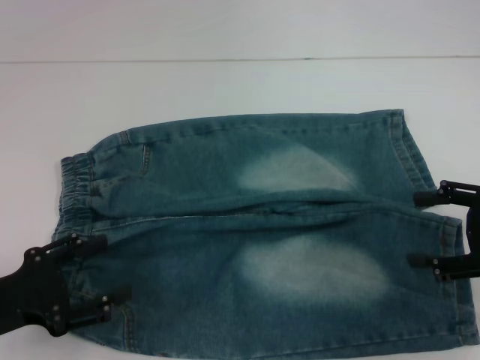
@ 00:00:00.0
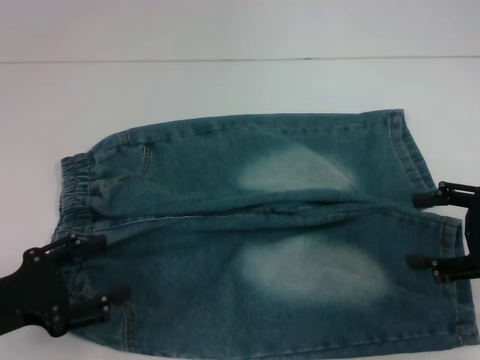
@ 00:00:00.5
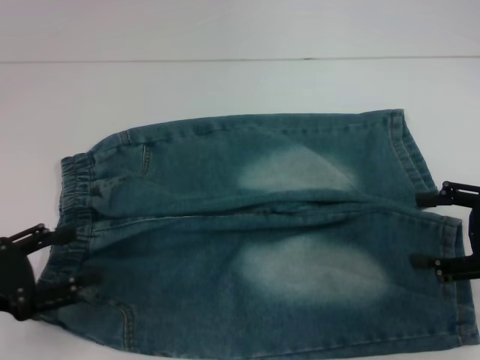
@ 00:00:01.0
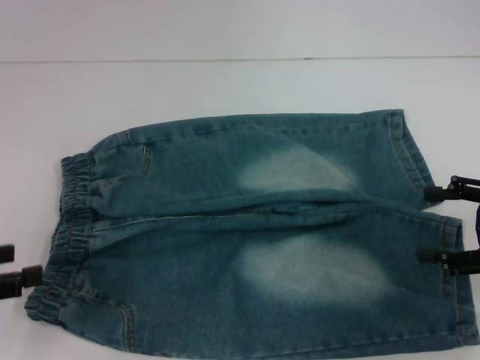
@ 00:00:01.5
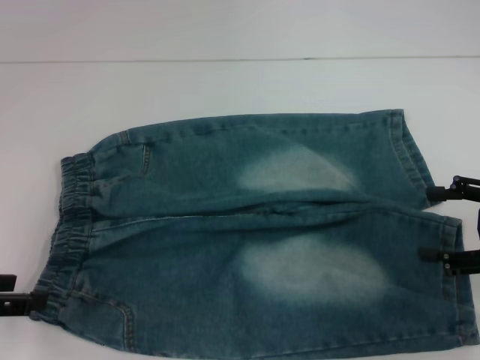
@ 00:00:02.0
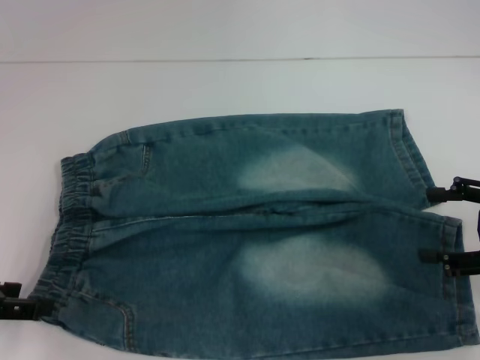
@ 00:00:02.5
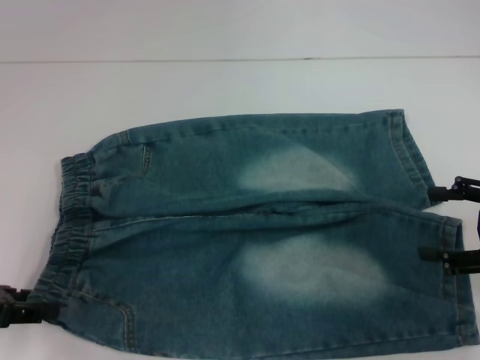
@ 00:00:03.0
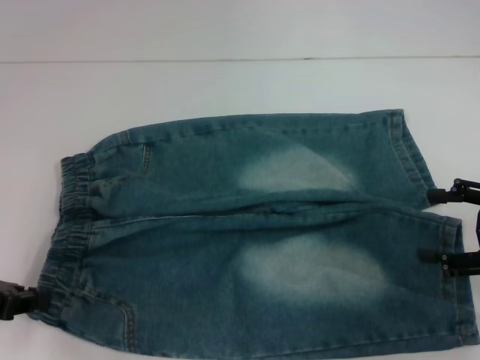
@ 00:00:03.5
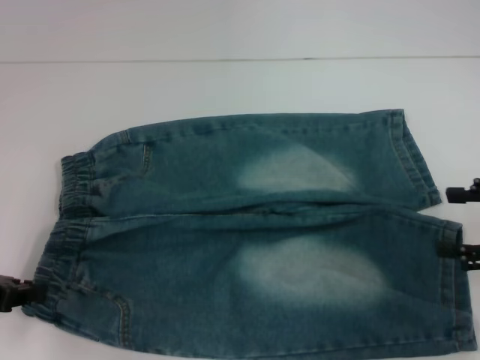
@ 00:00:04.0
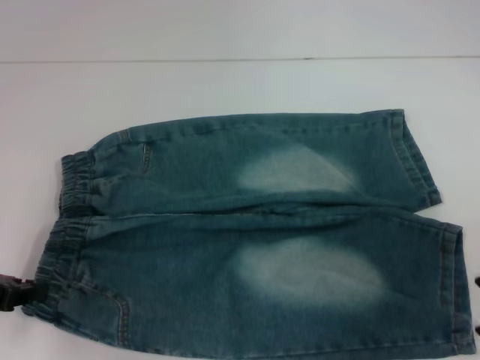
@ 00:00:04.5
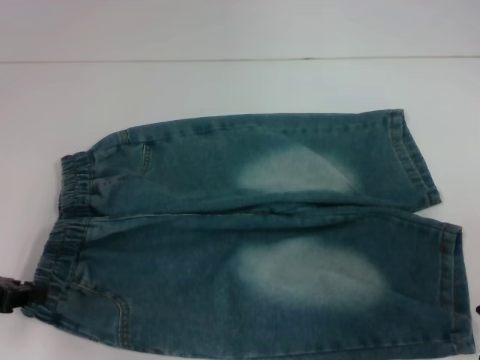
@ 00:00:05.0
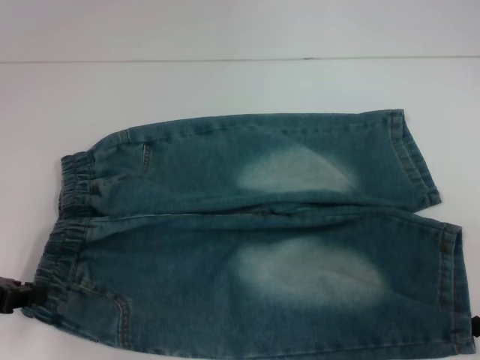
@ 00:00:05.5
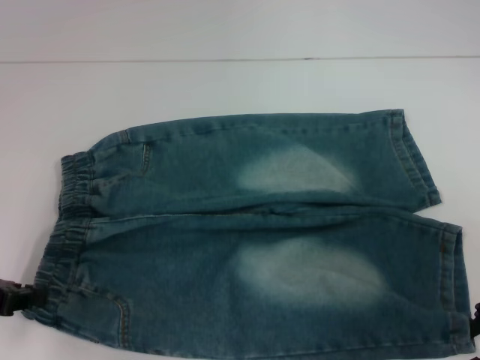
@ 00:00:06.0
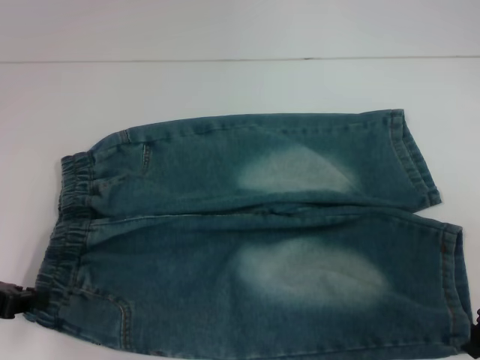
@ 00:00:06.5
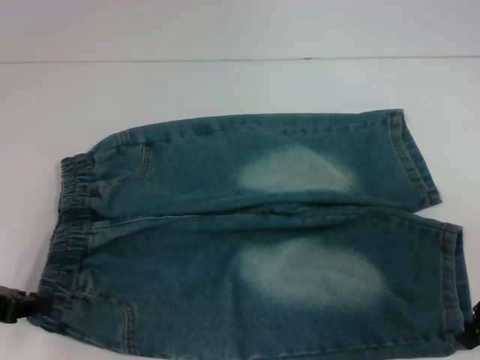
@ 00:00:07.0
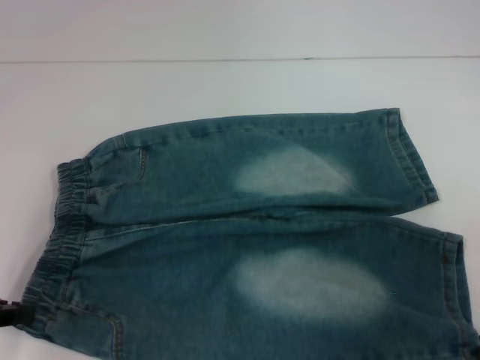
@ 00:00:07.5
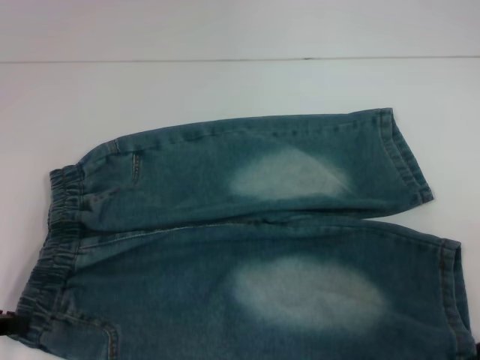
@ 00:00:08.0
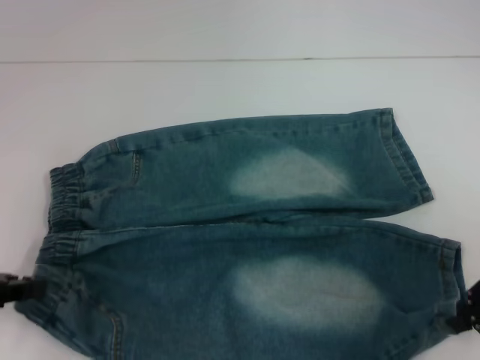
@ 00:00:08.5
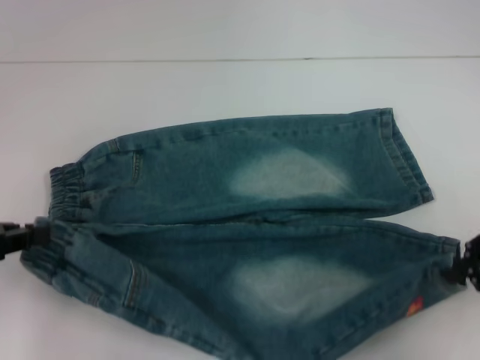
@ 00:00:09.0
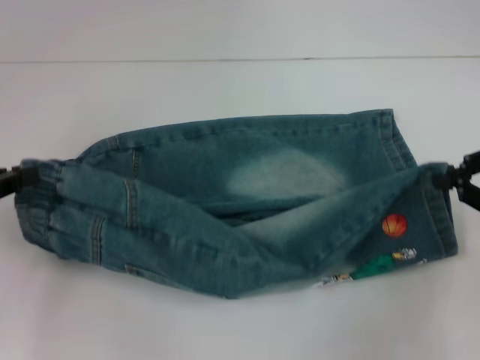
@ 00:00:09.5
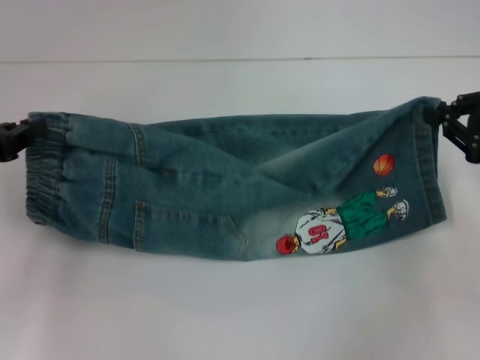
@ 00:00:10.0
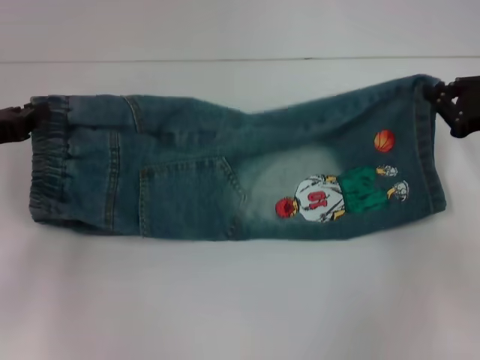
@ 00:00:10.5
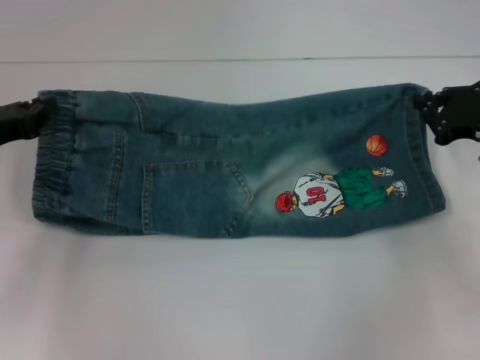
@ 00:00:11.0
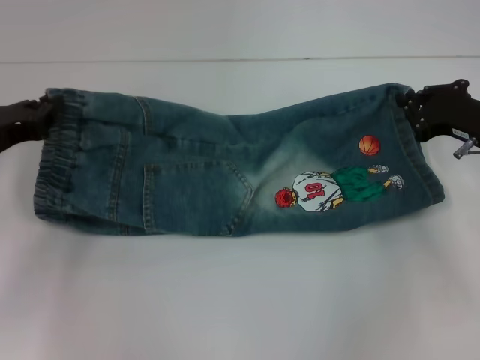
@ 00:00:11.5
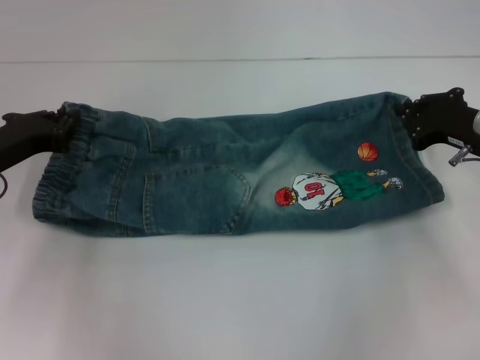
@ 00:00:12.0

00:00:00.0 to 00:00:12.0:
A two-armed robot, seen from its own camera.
Step, 00:00:00.0 to 00:00:03.0: Hold the lower left waistband with your left hand.
Step, 00:00:03.5 to 00:00:06.5: Grab the lower right pant leg with your right hand.
00:00:00.0 to 00:00:02.0: The left gripper shifts about 5 cm upward.
00:00:02.0 to 00:00:04.0: The left gripper closes.
00:00:06.0 to 00:00:08.0: The right gripper closes up.
00:00:08.0 to 00:00:10.0: The grippers both shift forward by approximately 5 cm.
00:00:10.0 to 00:00:12.0: The left gripper travels downward by approximately 5 cm, while the right gripper shifts approximately 10 cm downward and forward.

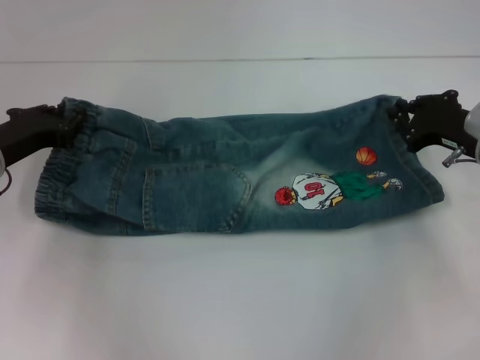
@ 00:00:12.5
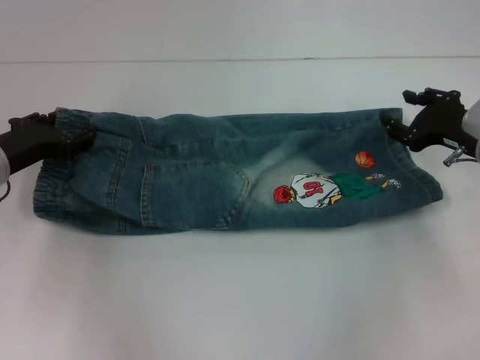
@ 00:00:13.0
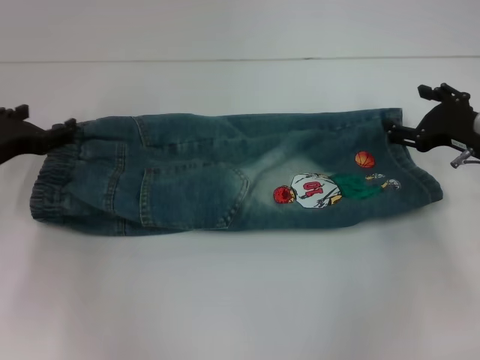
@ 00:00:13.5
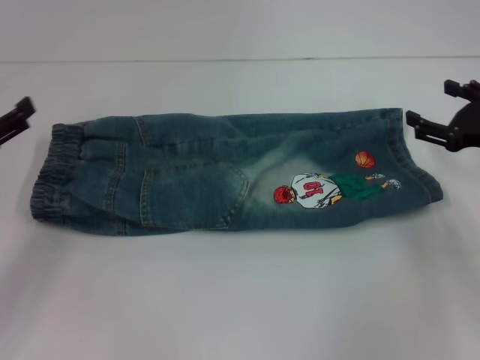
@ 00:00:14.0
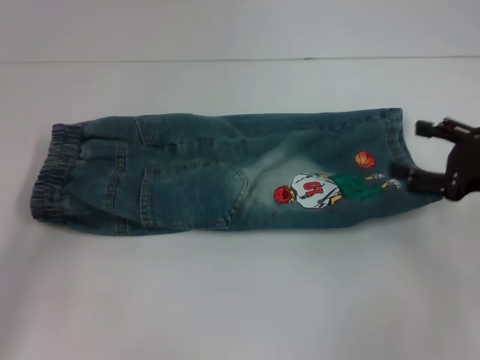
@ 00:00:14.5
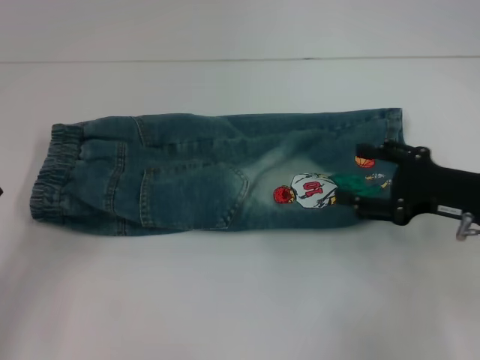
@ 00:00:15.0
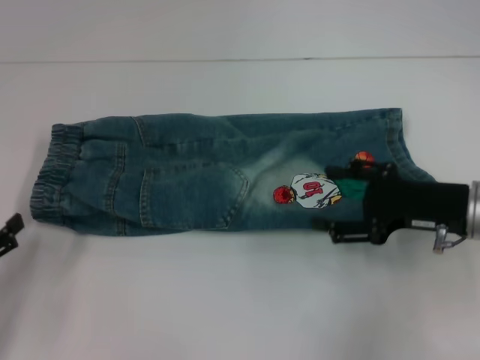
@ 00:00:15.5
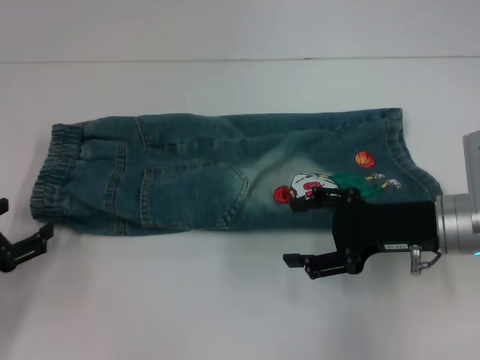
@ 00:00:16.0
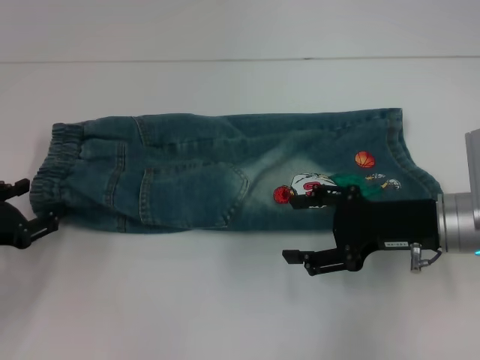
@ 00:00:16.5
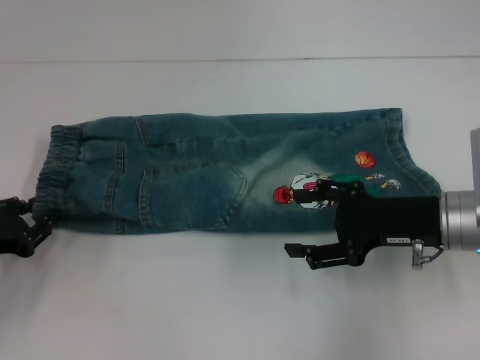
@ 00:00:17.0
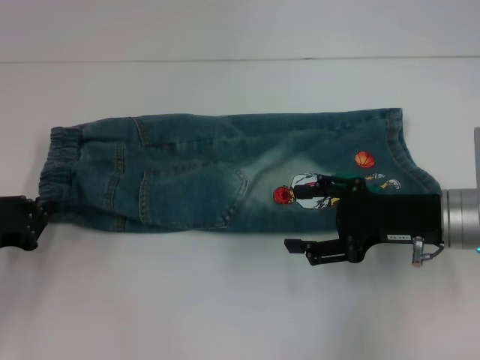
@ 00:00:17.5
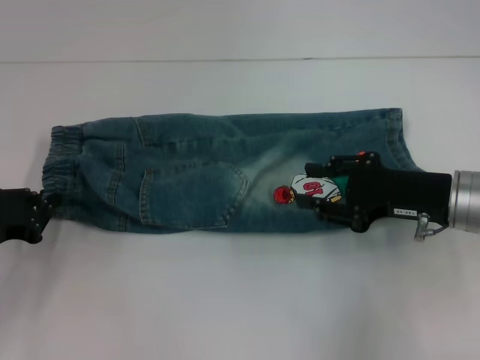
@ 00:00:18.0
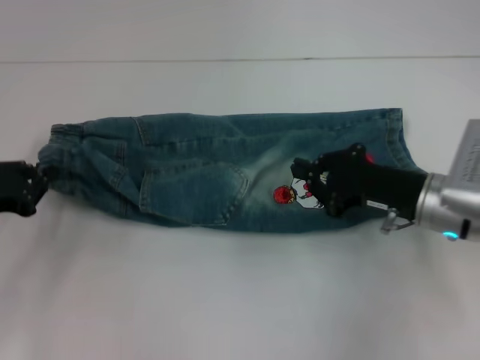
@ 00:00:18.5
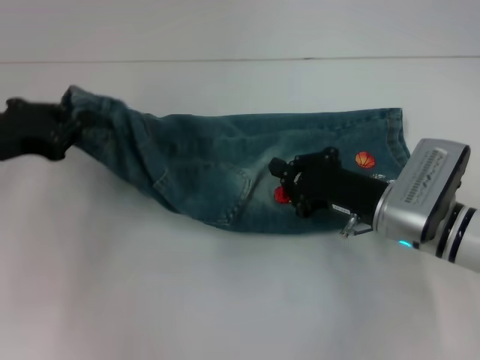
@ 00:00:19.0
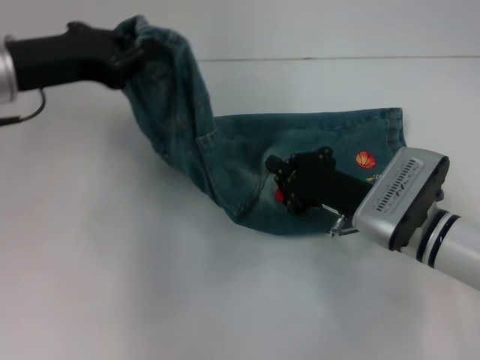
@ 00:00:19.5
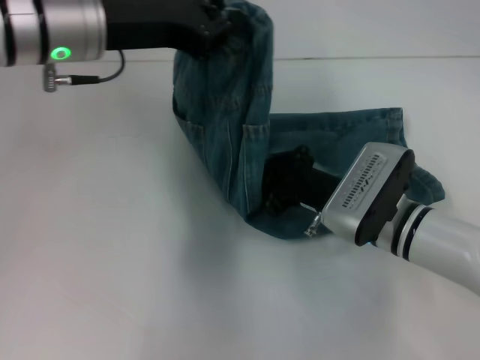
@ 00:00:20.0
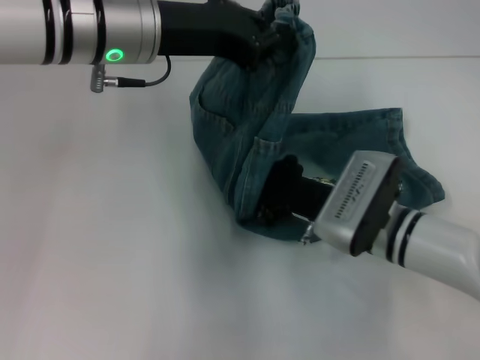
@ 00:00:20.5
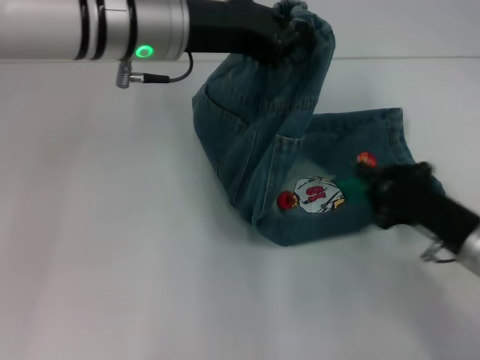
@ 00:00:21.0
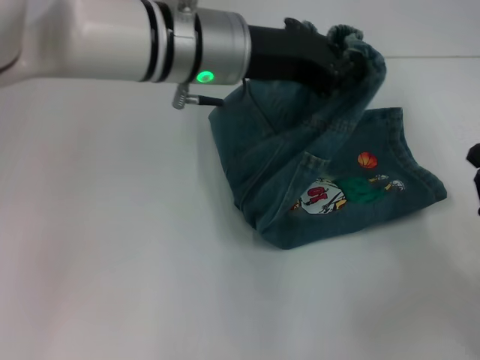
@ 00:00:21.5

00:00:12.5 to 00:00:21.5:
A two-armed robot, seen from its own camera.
Step, 00:00:13.5 to 00:00:17.0: Hold the waistband with your left hand.
Step, 00:00:17.5 to 00:00:20.5: Press the middle of the pants with your right hand.
00:00:12.5 to 00:00:14.5: The left gripper heads backward and to the left, covering roughly 15 cm, and opens, while the right gripper goes about 5 cm backward, and opens.
00:00:14.5 to 00:00:17.0: The left gripper ends up about 5 cm from where it was, and closes. The right gripper moves to the left, roughly 10 cm.
00:00:17.0 to 00:00:19.5: The right gripper is displaced to the left and downward by roughly 10 cm, and closes its fingers. The left gripper goes about 20 cm upward, forward and to the right, and closes.
00:00:19.5 to 00:00:21.5: The right gripper is displaced to the right and backward by approximately 20 cm. Meanwhile the left gripper goes about 20 cm to the right.

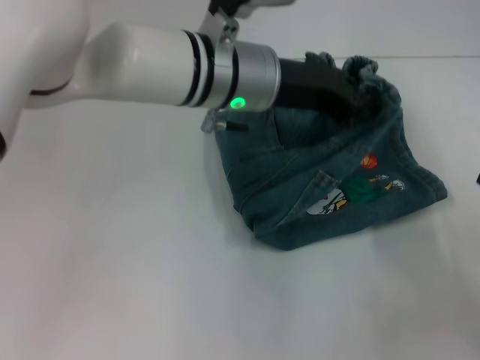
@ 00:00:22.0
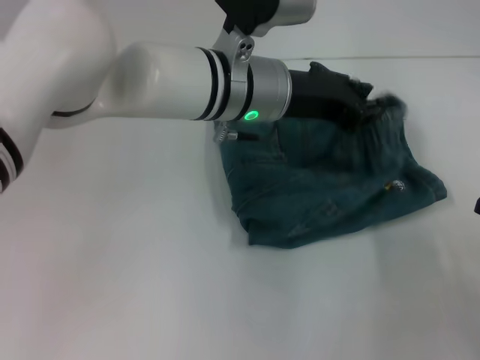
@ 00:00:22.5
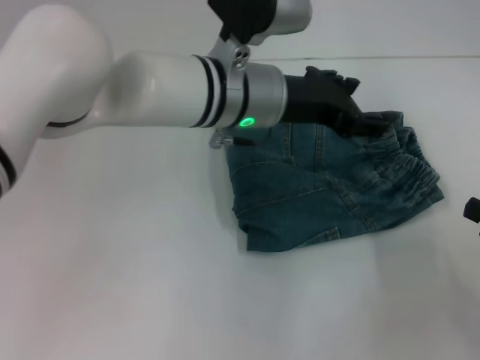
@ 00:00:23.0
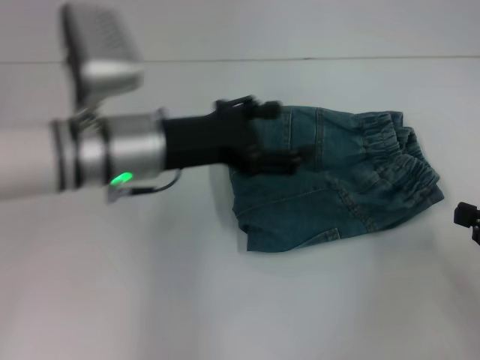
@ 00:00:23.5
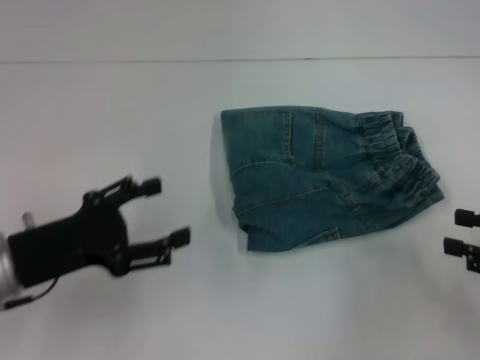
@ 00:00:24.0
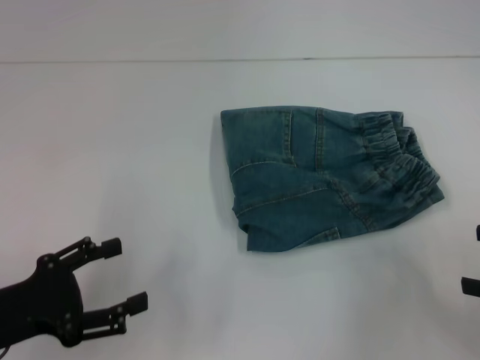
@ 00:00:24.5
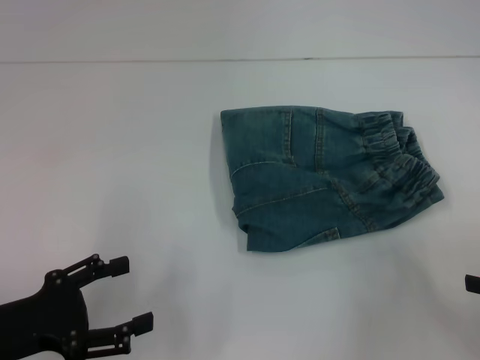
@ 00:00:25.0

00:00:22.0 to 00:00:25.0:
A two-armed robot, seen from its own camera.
00:00:22.0 to 00:00:23.5: The left gripper heads to the left, covering roughly 10 cm, and opens.
00:00:23.5 to 00:00:25.0: The left gripper travels to the left, backward and downward by about 25 cm. Meanwhile the right gripper opens.
